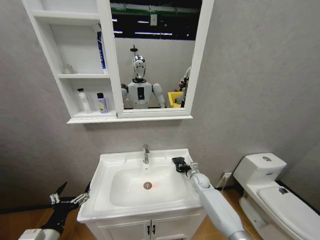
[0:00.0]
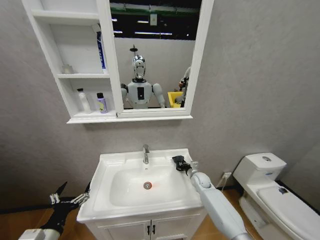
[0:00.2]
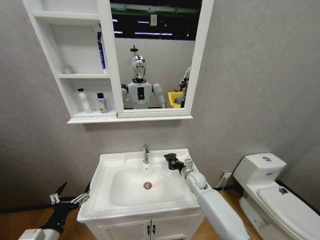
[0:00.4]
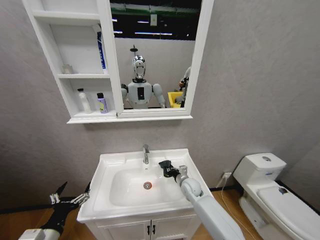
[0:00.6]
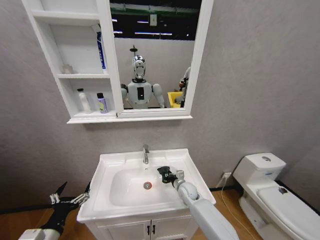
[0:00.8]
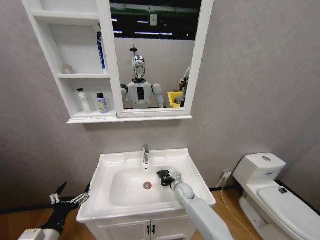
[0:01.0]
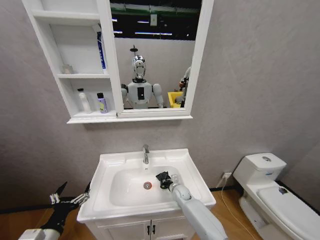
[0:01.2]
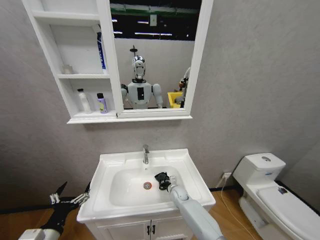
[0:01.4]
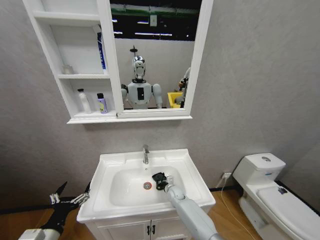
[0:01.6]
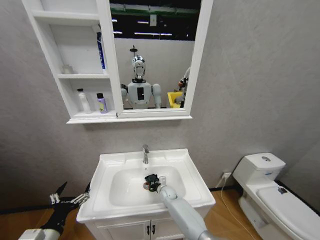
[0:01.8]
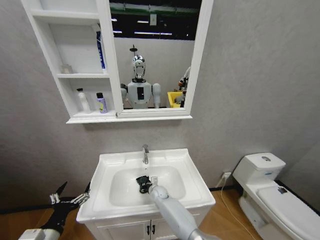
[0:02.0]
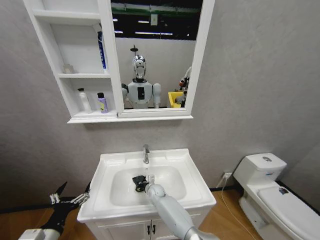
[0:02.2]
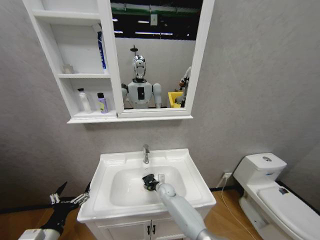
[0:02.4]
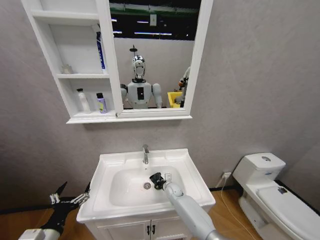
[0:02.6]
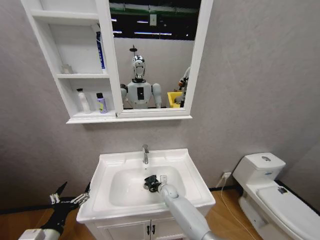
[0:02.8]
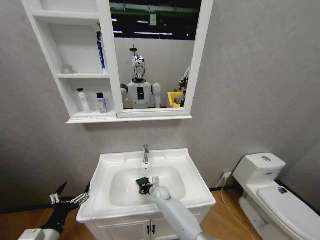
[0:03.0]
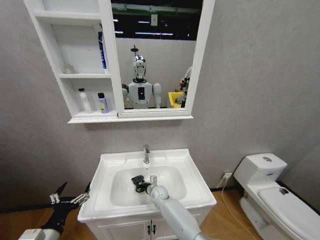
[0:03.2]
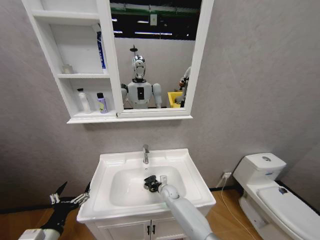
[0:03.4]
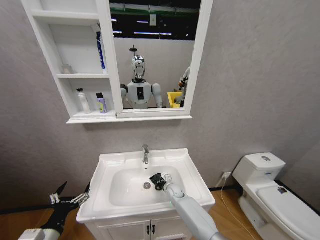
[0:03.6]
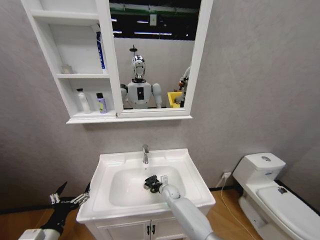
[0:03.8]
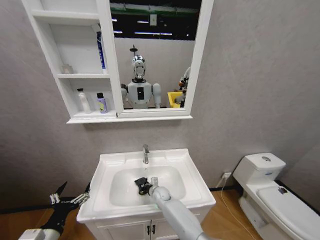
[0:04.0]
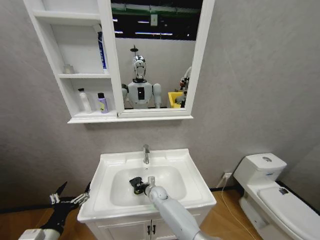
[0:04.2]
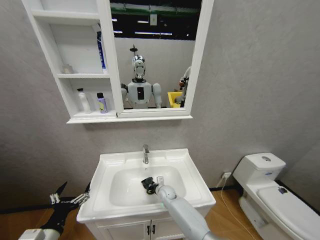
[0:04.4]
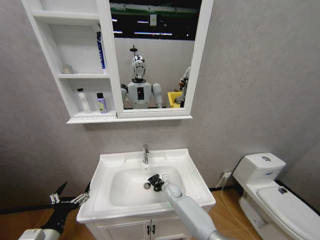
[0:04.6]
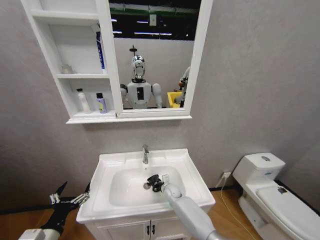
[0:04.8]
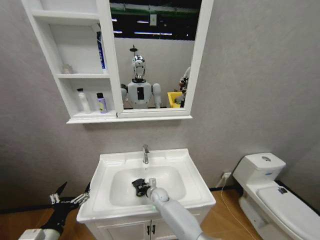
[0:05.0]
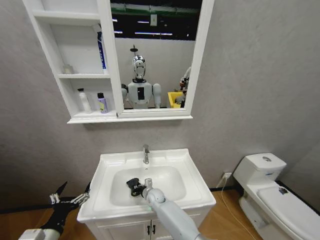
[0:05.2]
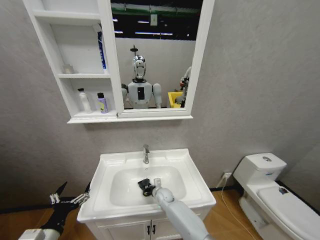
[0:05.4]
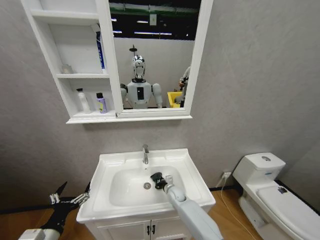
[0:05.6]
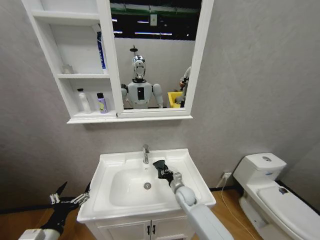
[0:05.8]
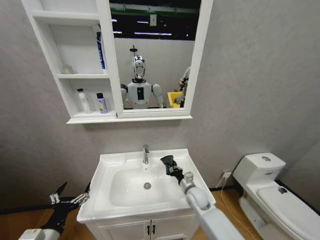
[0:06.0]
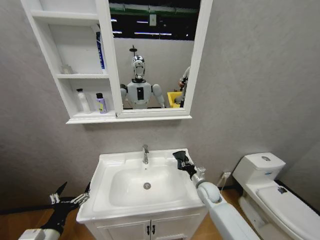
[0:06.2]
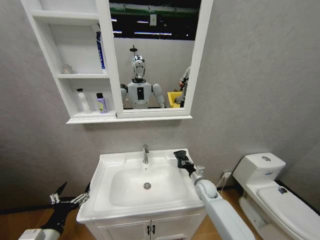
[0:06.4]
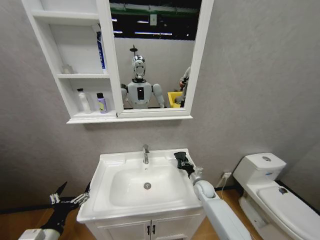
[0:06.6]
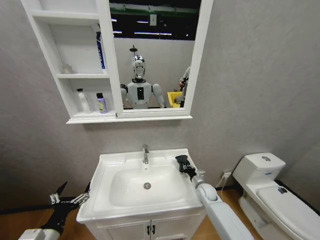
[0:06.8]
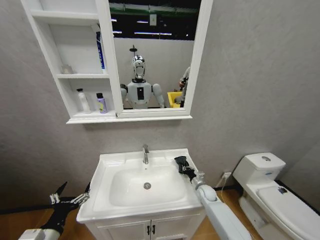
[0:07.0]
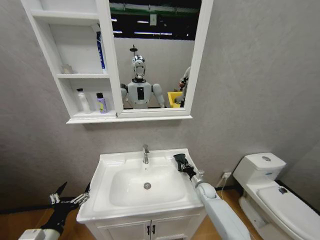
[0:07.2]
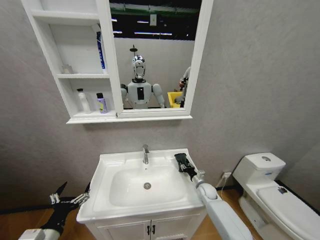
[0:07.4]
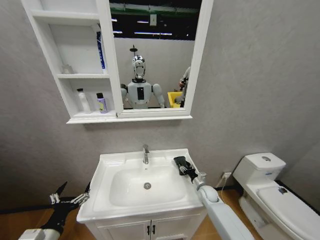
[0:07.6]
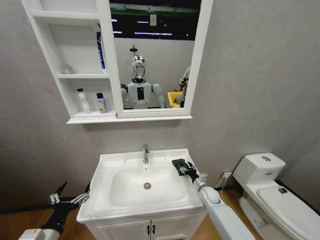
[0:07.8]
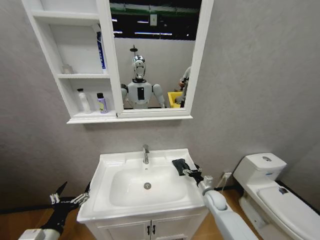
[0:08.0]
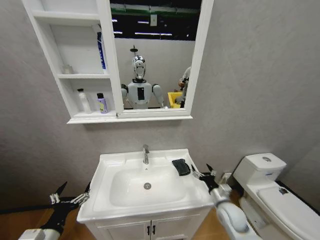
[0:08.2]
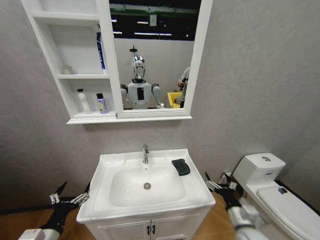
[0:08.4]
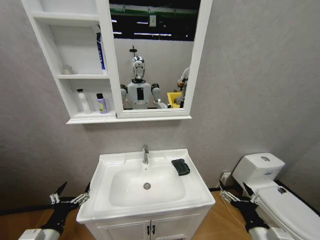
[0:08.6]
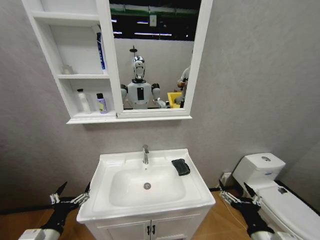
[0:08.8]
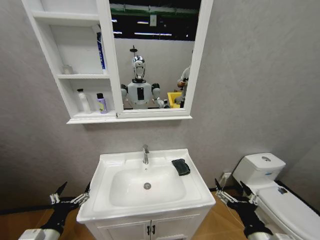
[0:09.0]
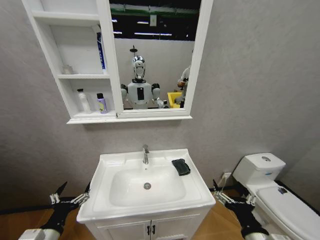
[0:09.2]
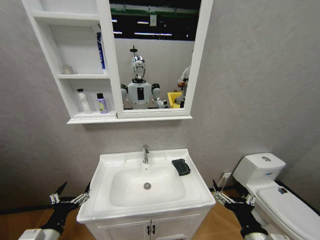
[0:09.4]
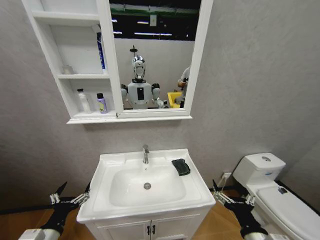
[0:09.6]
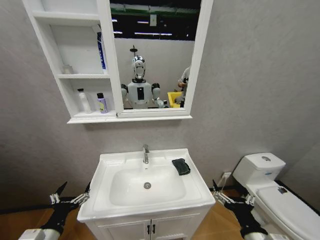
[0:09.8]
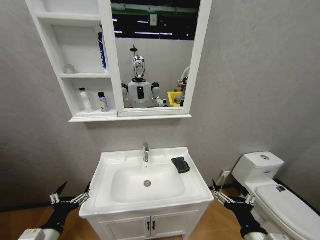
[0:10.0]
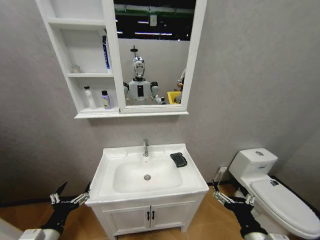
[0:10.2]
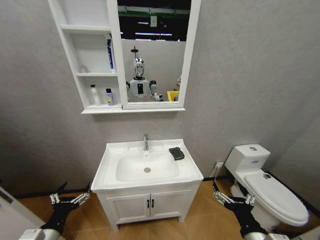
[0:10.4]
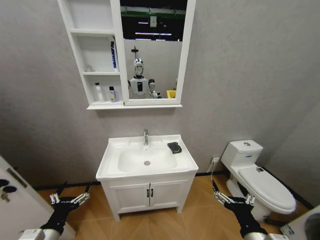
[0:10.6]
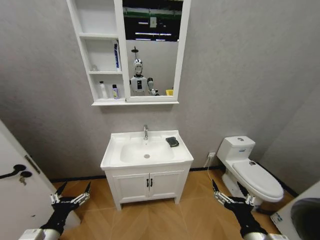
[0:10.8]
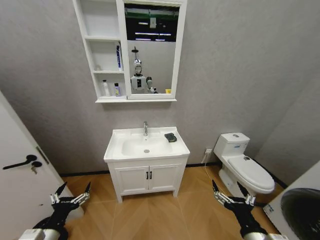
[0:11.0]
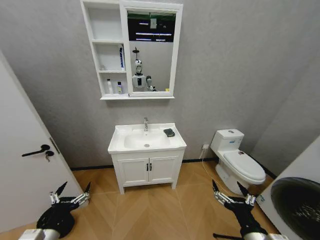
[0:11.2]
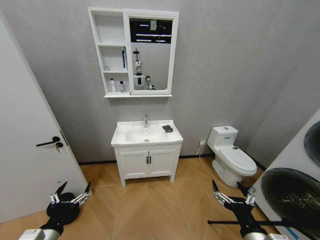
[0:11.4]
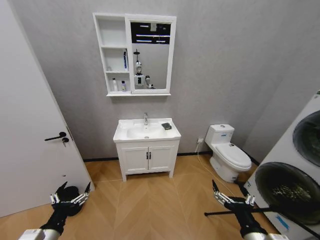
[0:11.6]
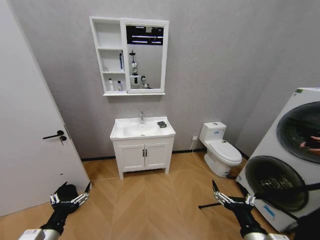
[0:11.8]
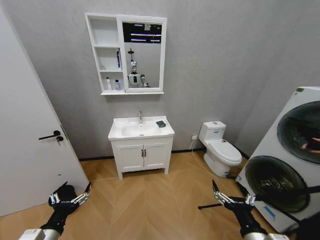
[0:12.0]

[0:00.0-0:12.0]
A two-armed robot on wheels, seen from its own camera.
Task of the whole recording: Move facial cleanser and shampoo from washbasin to cabinet, then wipe washbasin with towel.
0:00.0 to 0:01.6: The right gripper moves to the left and downward, approximately 15 cm.
0:01.6 to 0:03.0: The right gripper swings left and right, approximately 10 cm each way, with 2 reversals.
0:03.0 to 0:04.4: The right gripper goes left and right, about 10 cm each way, reversing 2 times.
0:04.4 to 0:06.0: The right gripper goes left and right, some 20 cm each way, reversing 2 times.
0:06.0 to 0:07.6: The right gripper moves to the right, downward and forward, some 15 cm, and opens up.
0:07.6 to 0:09.0: The right gripper is displaced backward and upward by approximately 40 cm, and opens.

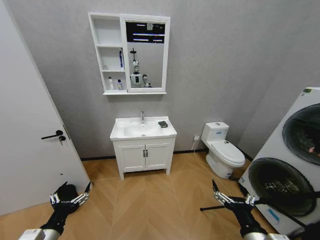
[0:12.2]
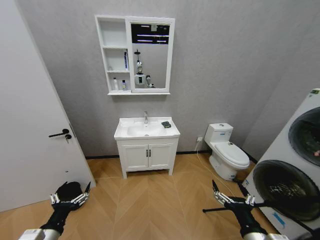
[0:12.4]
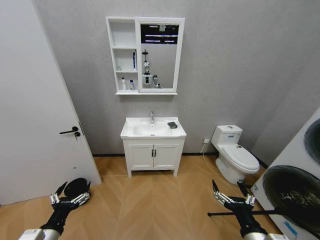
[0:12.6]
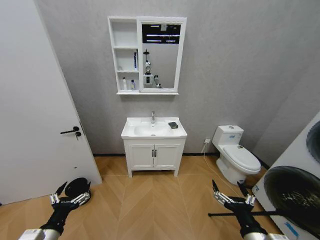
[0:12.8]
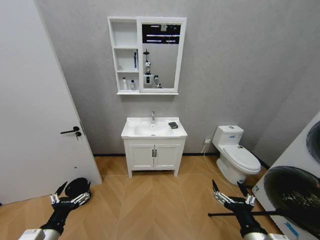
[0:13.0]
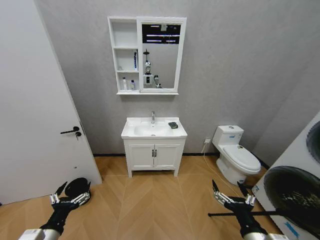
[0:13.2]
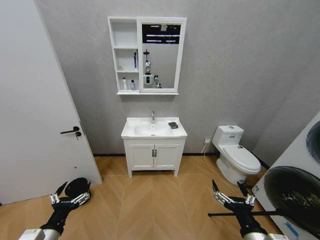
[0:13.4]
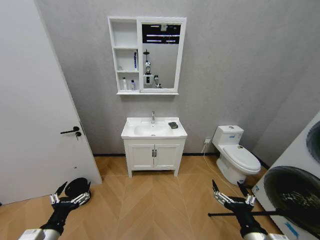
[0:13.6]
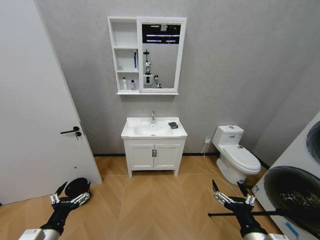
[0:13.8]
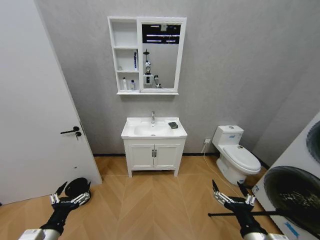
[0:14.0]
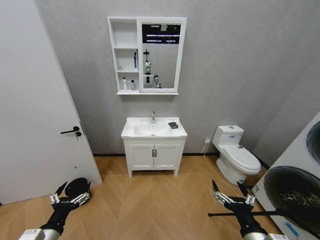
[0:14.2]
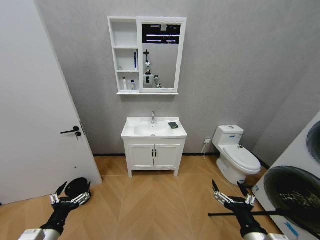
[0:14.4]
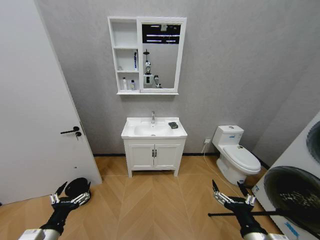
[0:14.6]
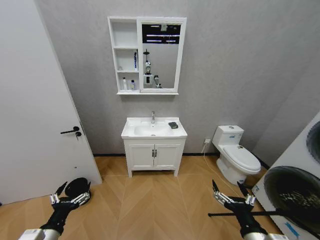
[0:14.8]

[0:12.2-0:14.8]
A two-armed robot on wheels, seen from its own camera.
Task of the whole recording: Move facial cleanser and shampoo from washbasin to cabinet, then wipe washbasin with towel.
0:13.4 to 0:14.8: Both grippers stay about where they are.

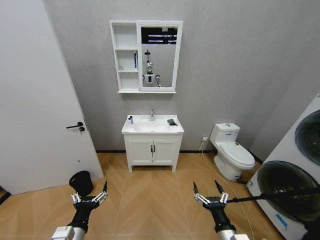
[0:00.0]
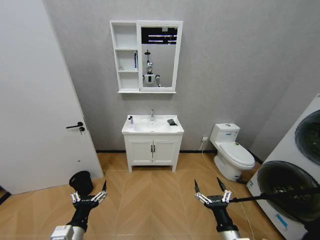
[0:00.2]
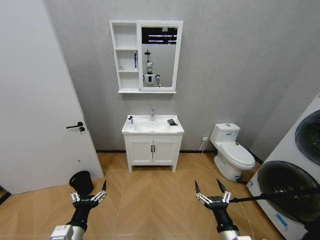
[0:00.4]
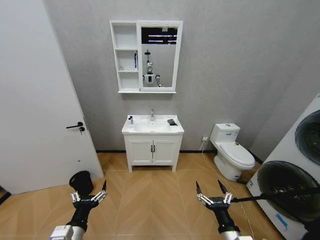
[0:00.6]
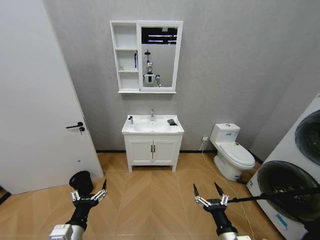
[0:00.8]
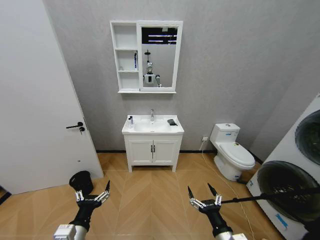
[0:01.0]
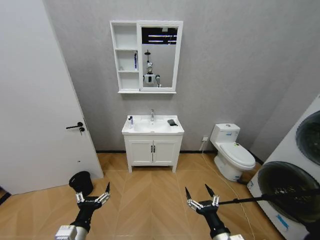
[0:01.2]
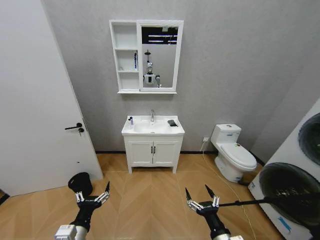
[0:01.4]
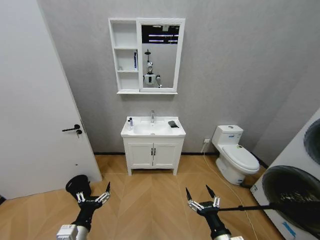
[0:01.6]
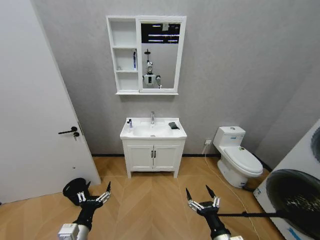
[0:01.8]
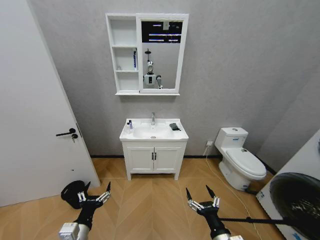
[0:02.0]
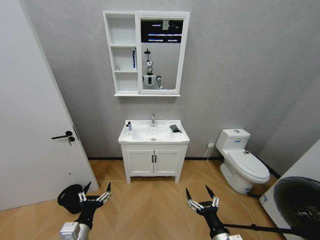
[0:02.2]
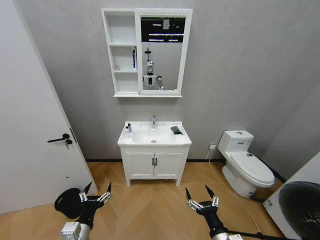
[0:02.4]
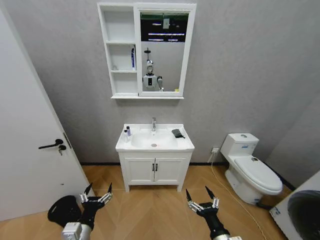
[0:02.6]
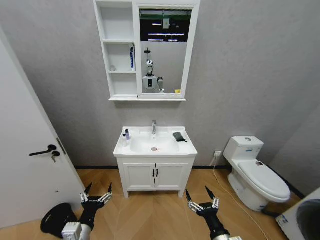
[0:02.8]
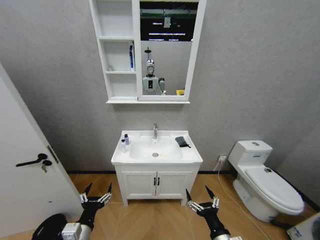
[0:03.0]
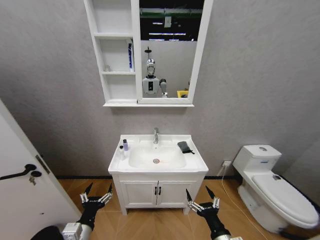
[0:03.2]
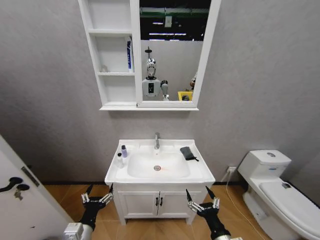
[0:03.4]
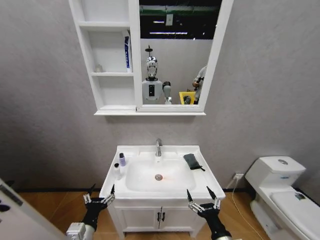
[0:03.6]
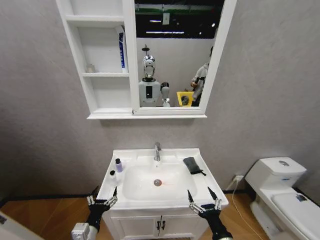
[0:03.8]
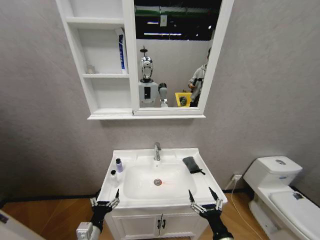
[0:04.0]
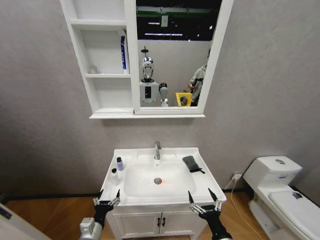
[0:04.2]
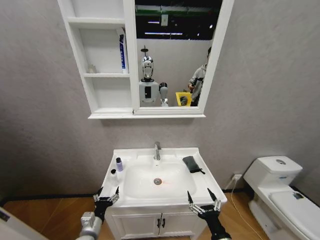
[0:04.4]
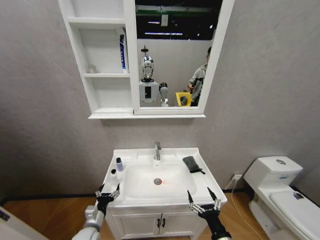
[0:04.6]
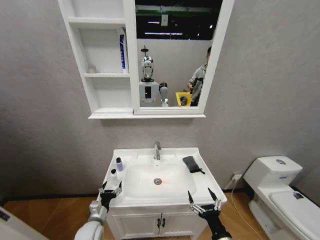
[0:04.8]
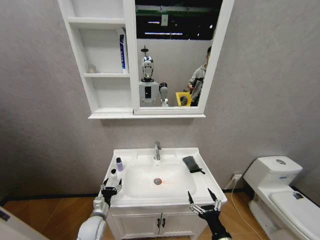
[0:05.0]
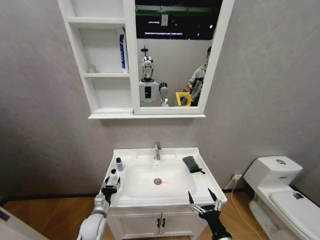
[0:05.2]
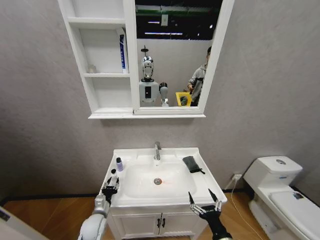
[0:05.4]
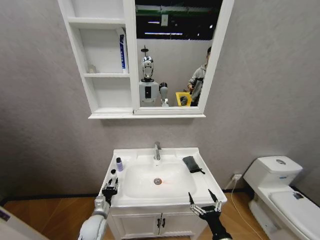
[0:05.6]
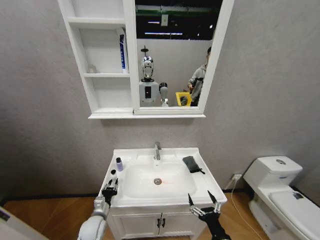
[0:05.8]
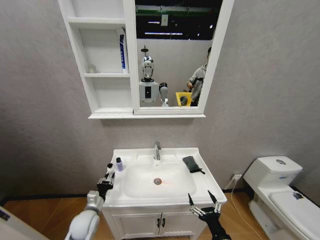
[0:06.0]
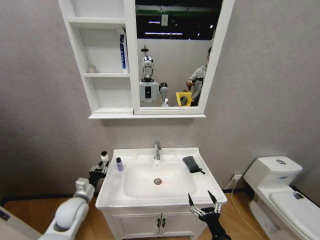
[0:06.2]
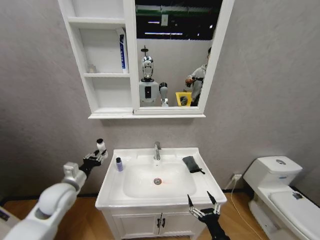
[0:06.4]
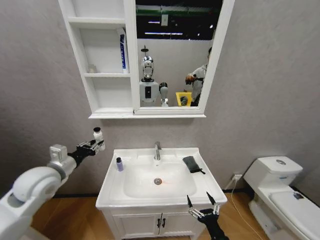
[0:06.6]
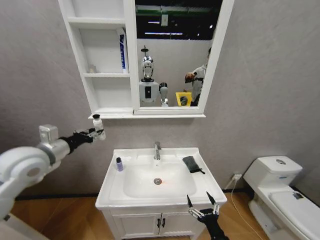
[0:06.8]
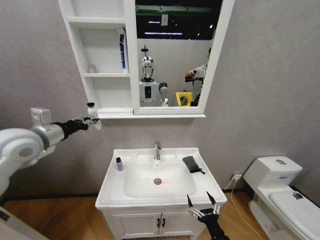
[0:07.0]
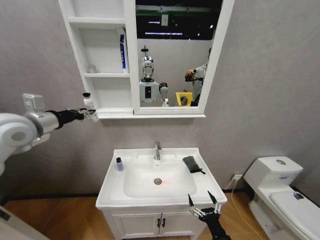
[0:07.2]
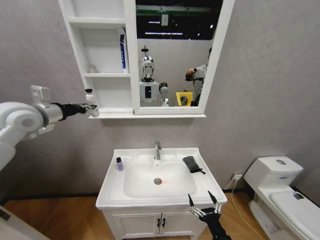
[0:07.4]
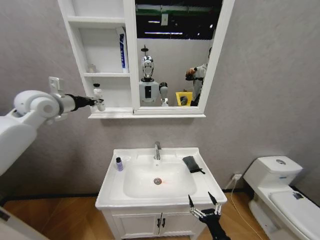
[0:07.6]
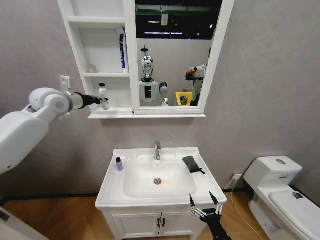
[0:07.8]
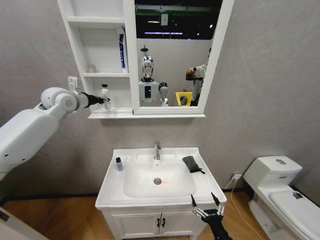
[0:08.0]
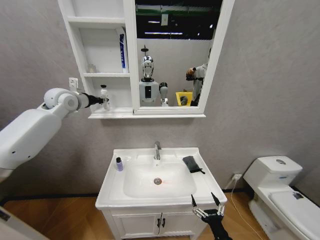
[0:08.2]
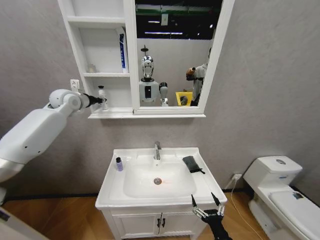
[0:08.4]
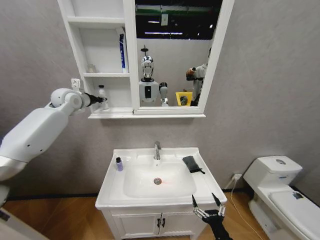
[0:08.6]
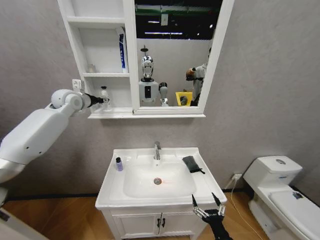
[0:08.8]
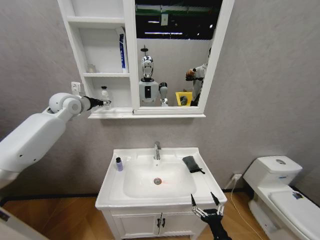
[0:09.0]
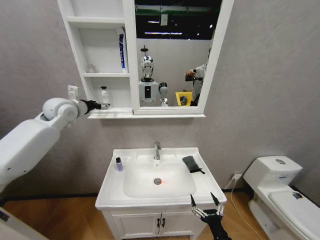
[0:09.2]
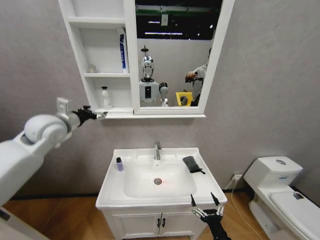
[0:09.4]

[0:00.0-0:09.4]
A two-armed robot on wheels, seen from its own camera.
Task of the whole recording: Move facial cleanser and shampoo from washbasin to cabinet, then wipe washbasin with towel.
0:03.2 to 0:04.8: The left gripper shifts approximately 15 cm forward and downward.
0:04.8 to 0:06.2: The left gripper goes roughly 10 cm upward and to the left, and closes.
0:06.2 to 0:07.8: The left gripper is displaced upward by roughly 40 cm.
0:07.8 to 0:09.4: The left gripper shifts about 5 cm downward, and opens its fingers.
